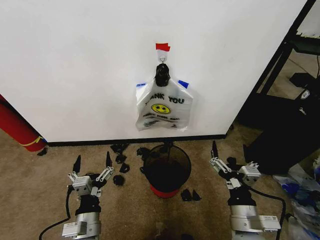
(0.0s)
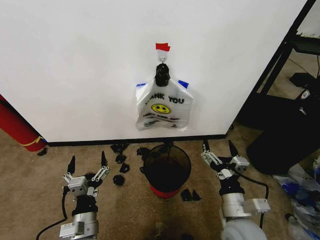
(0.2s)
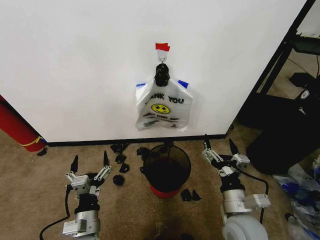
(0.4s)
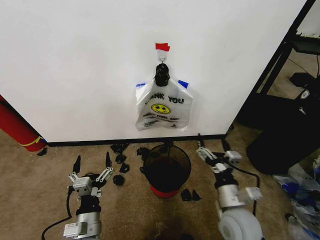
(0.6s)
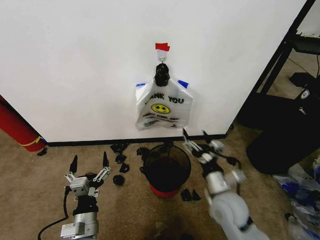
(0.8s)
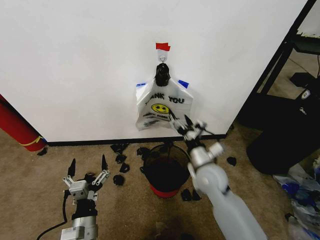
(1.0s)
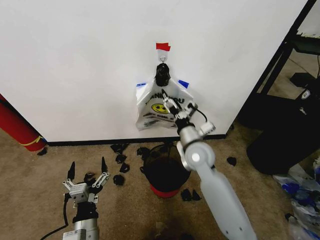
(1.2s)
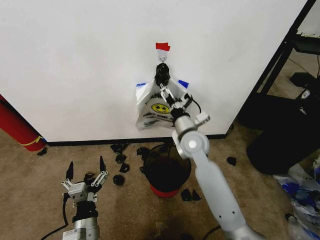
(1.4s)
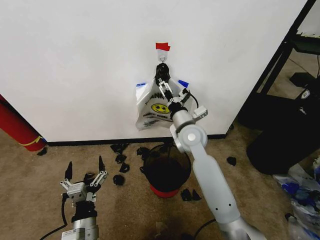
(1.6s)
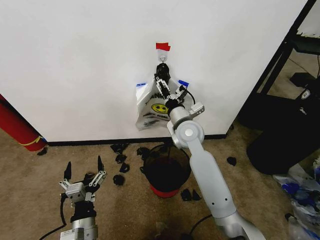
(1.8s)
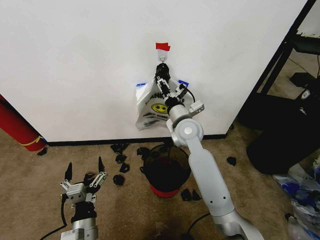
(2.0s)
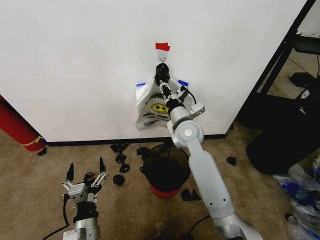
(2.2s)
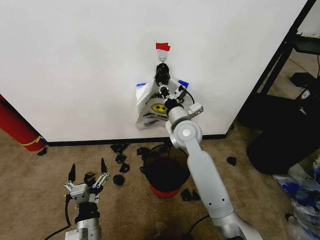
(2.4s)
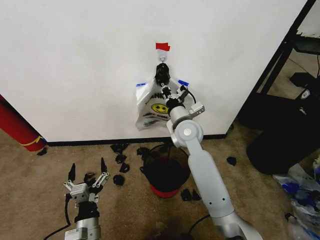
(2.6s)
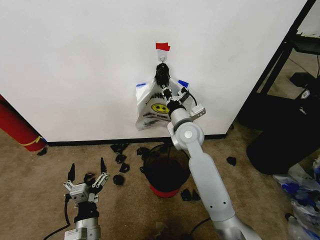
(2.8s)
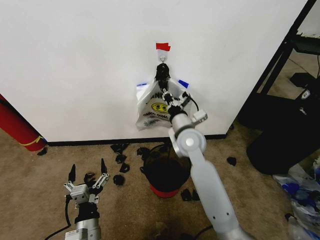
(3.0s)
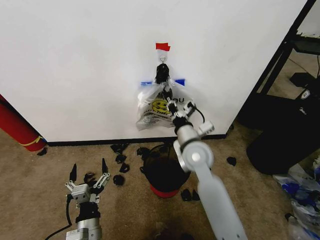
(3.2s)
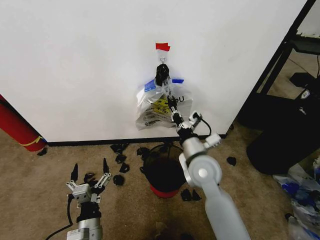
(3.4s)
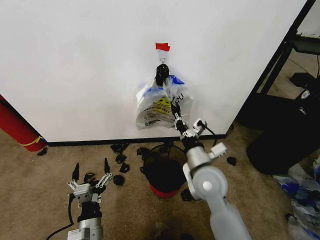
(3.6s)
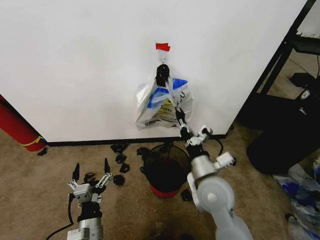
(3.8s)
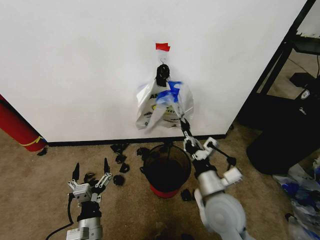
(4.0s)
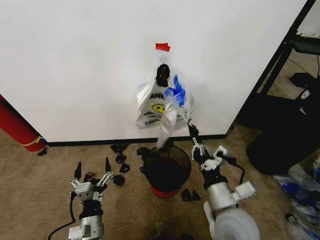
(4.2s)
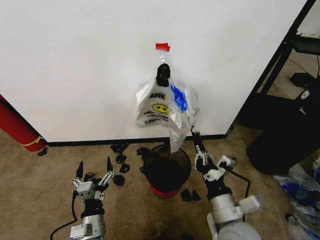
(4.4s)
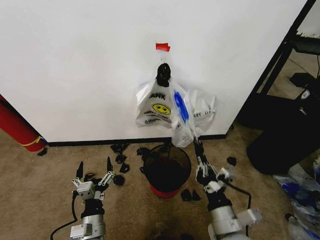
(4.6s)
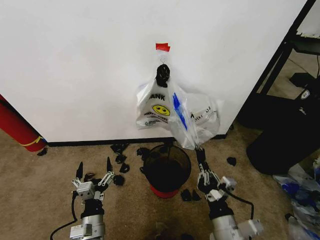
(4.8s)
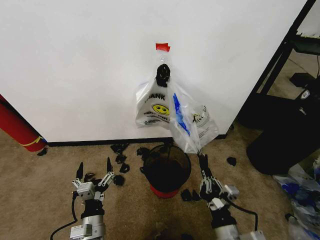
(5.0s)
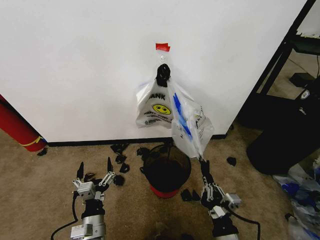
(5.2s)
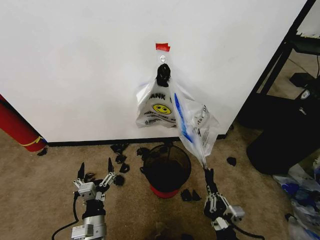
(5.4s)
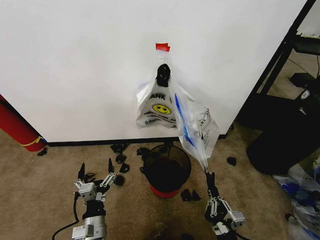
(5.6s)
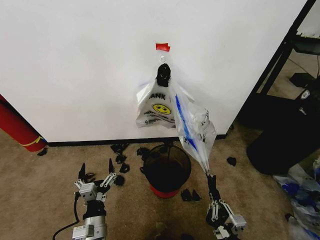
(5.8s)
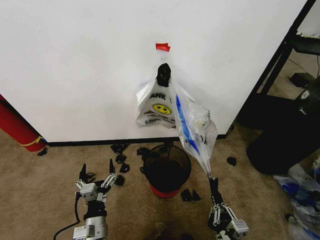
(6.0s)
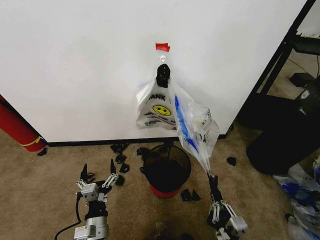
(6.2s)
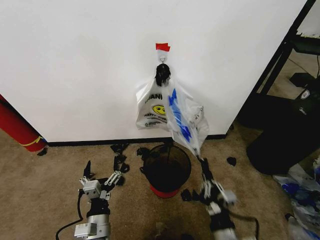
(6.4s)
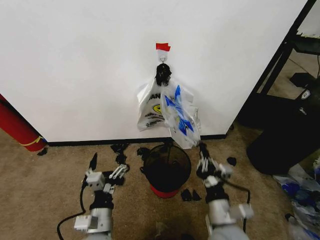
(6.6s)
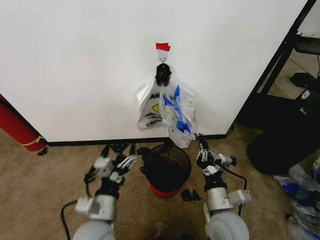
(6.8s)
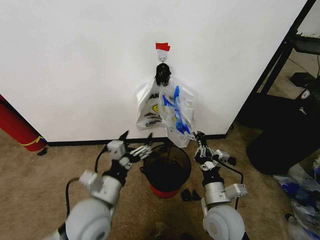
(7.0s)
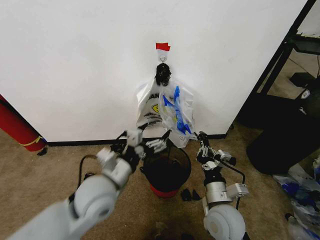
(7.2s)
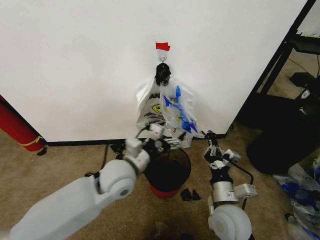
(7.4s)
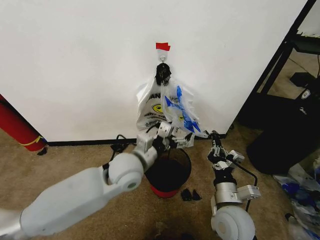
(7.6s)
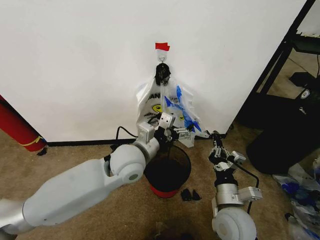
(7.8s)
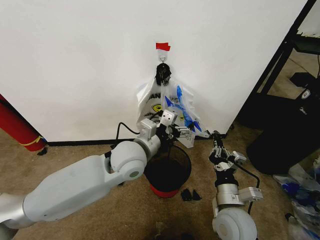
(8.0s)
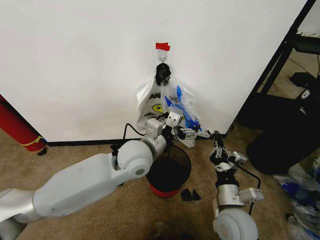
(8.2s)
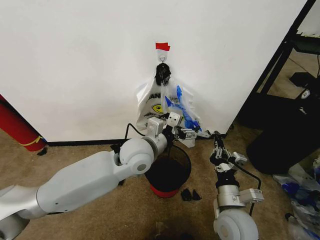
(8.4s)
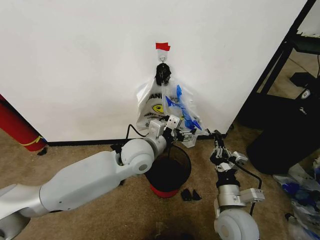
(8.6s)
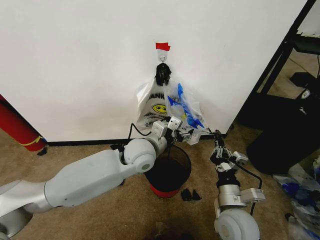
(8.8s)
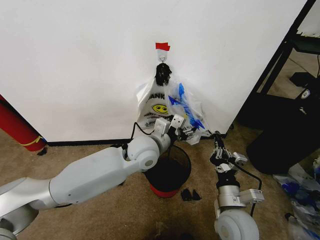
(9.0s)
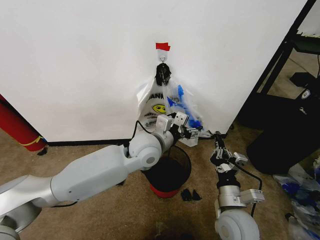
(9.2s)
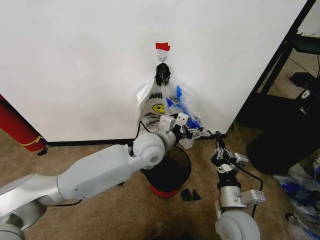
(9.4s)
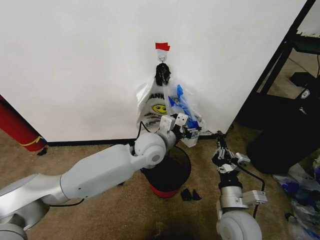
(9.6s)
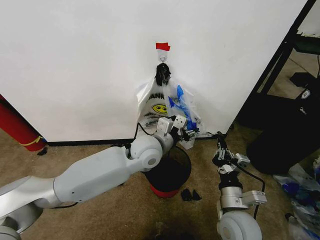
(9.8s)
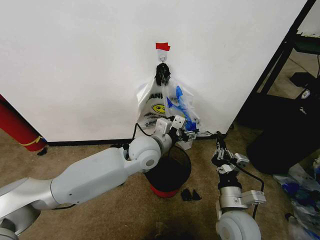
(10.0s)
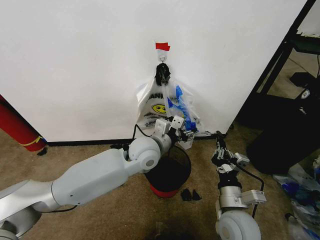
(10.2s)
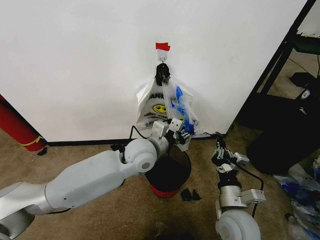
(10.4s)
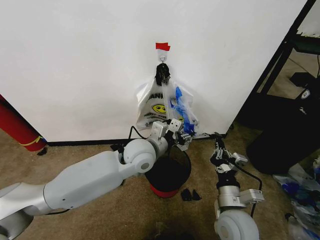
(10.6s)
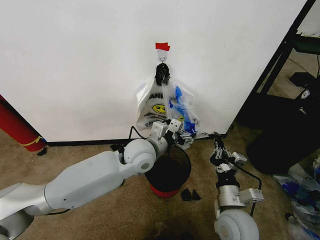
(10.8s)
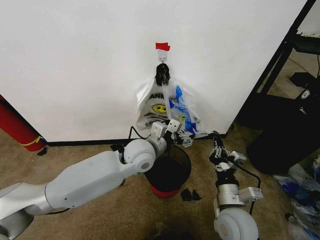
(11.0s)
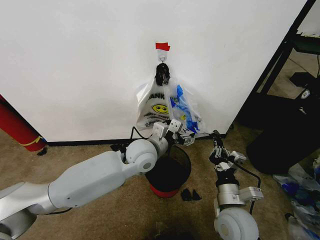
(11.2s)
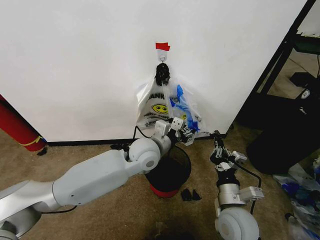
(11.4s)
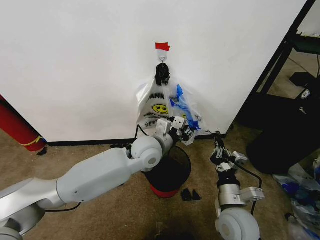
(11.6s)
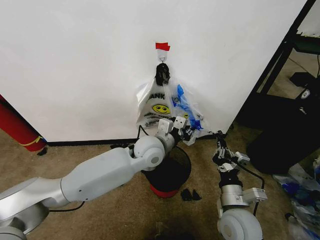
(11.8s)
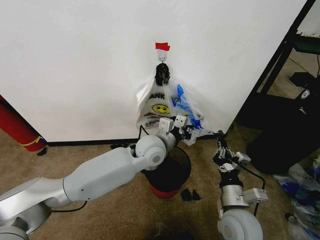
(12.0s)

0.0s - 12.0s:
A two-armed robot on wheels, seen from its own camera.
Task of the whole recording: Pick up the garbage bag from the wall and place it over the trash bin.
1.6s - 3.0s: The right gripper closes.
3.0s - 4.4s: The right gripper moves backward, some 25 cm.
4.4s - 6.0s: The right gripper shifts approximately 15 cm backward and downward.
6.0s - 7.6s: The left gripper is displaced forward, upward and to the right by about 25 cm. Meanwhile the right gripper goes approximately 20 cm forward and upward.
7.6s - 9.0s: The left gripper moves forward, roughly 5 cm, and closes up.
9.0s - 10.4s: The grippers move only a little.
10.4s - 12.0s: The left gripper closes.

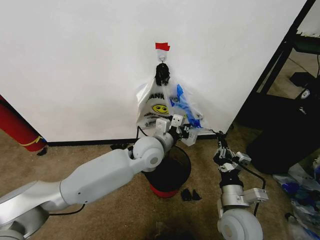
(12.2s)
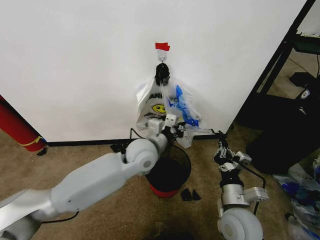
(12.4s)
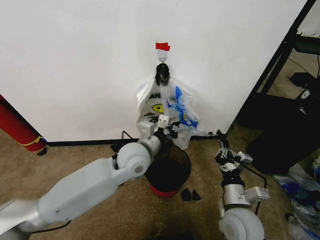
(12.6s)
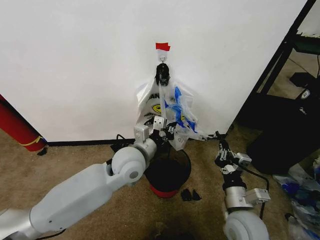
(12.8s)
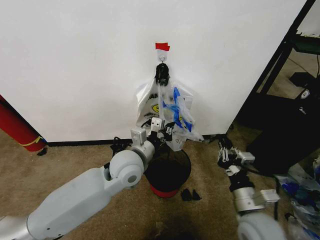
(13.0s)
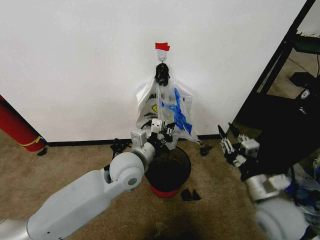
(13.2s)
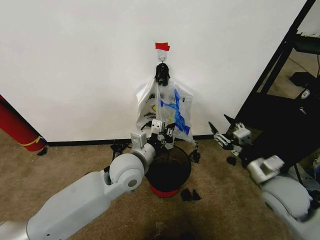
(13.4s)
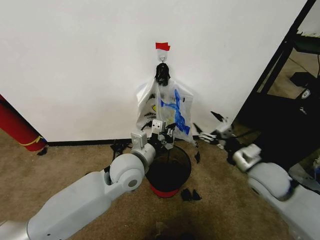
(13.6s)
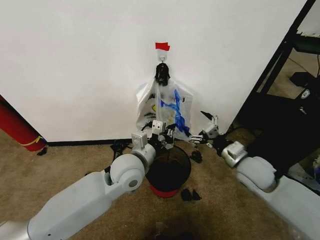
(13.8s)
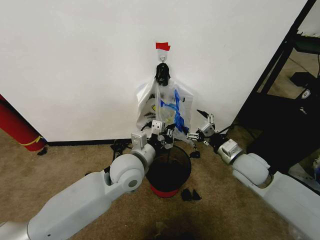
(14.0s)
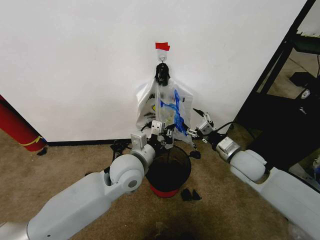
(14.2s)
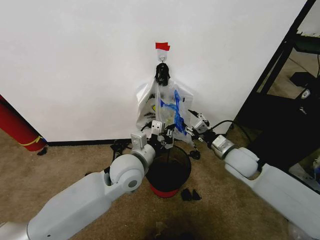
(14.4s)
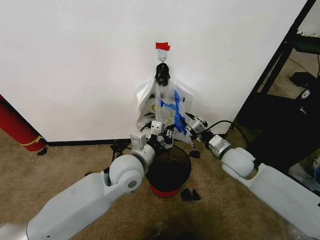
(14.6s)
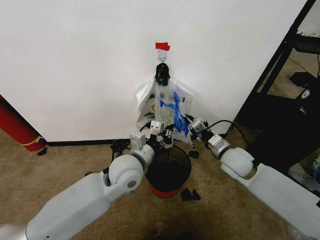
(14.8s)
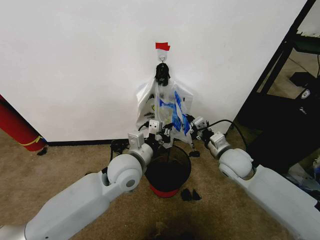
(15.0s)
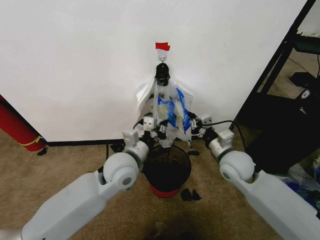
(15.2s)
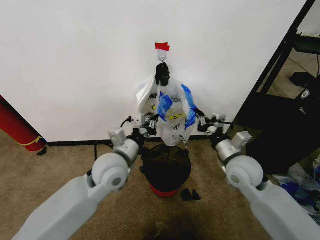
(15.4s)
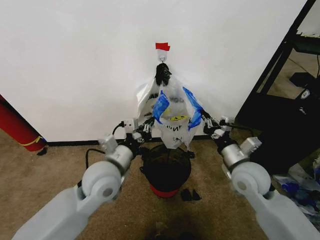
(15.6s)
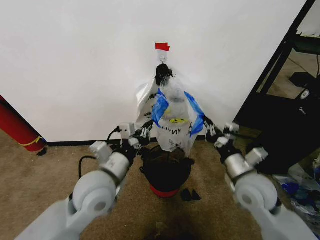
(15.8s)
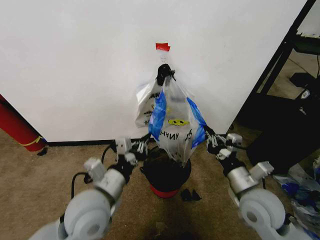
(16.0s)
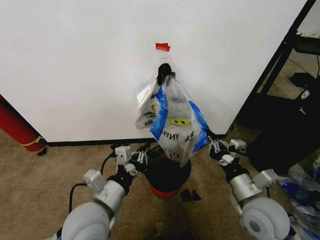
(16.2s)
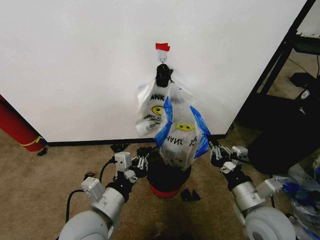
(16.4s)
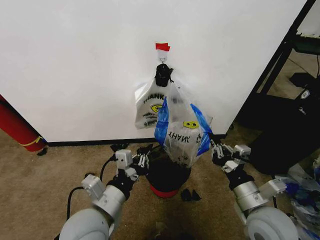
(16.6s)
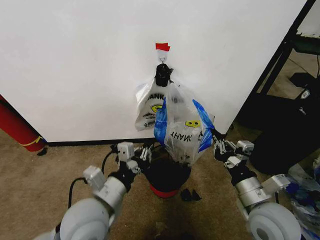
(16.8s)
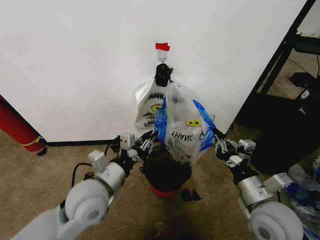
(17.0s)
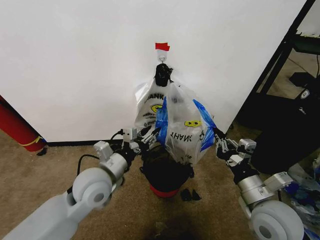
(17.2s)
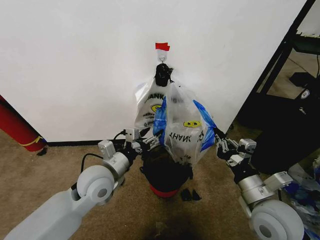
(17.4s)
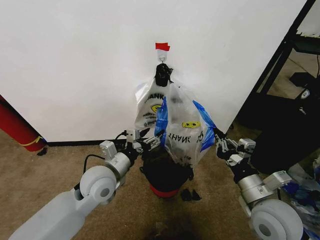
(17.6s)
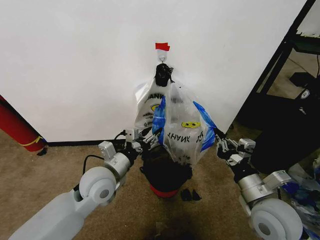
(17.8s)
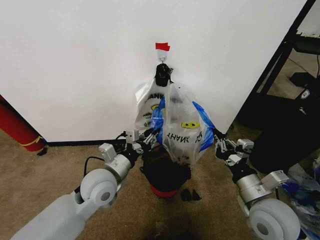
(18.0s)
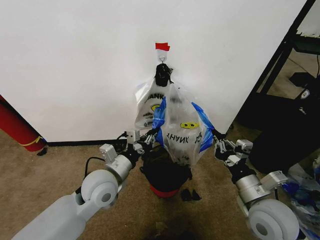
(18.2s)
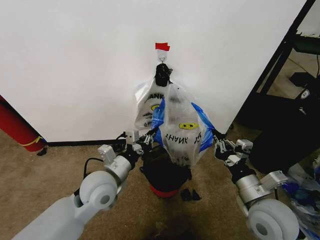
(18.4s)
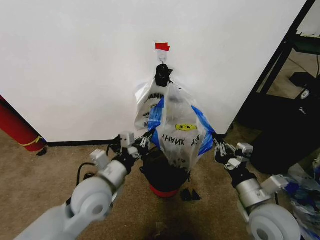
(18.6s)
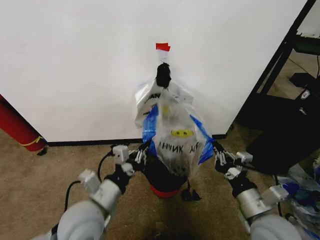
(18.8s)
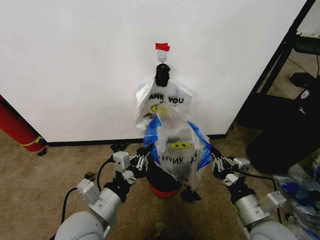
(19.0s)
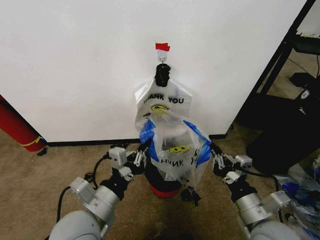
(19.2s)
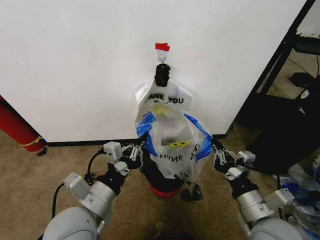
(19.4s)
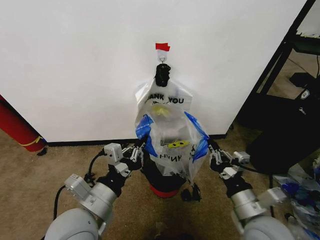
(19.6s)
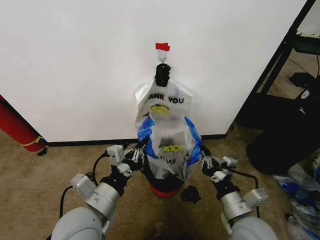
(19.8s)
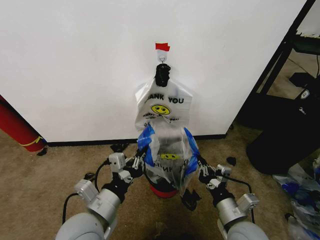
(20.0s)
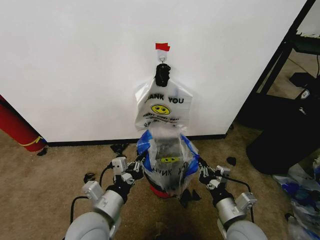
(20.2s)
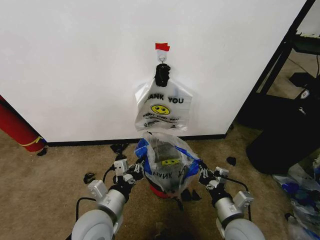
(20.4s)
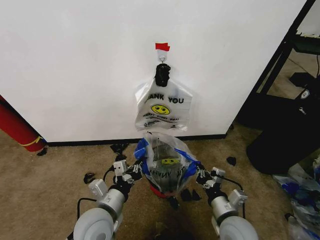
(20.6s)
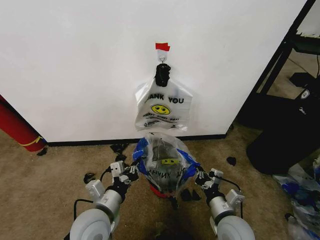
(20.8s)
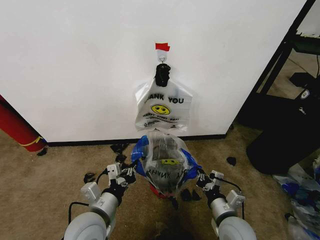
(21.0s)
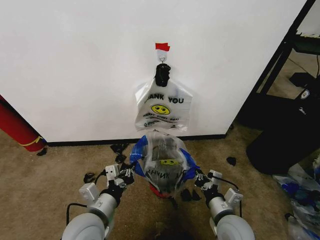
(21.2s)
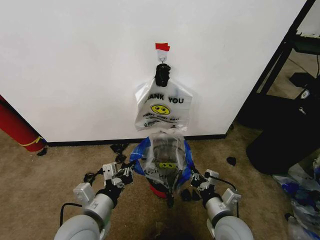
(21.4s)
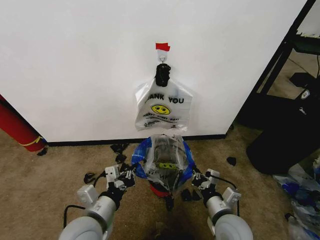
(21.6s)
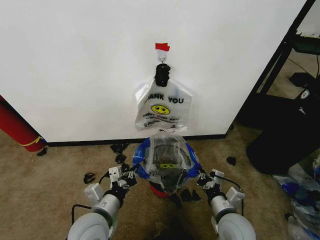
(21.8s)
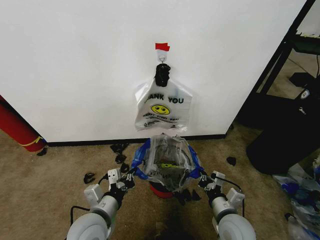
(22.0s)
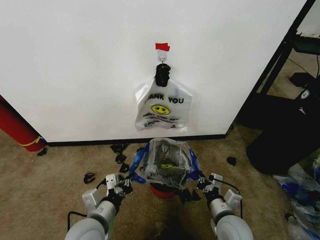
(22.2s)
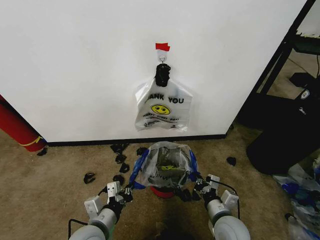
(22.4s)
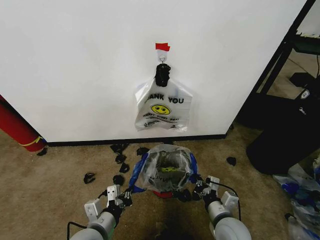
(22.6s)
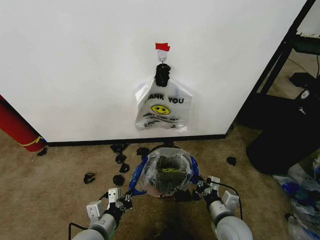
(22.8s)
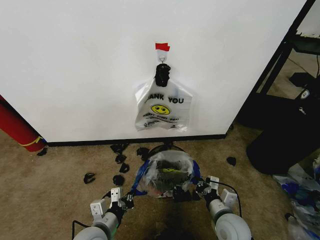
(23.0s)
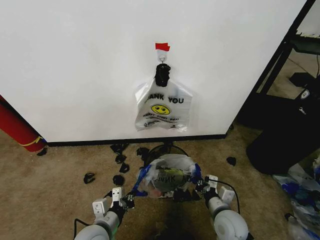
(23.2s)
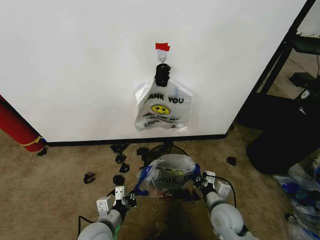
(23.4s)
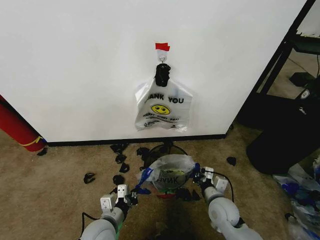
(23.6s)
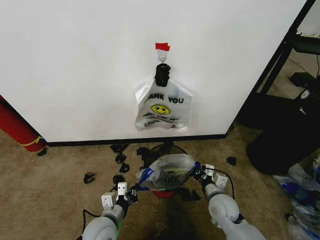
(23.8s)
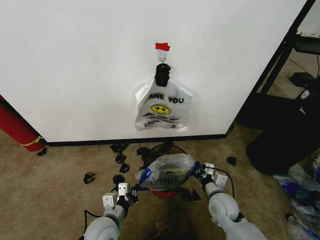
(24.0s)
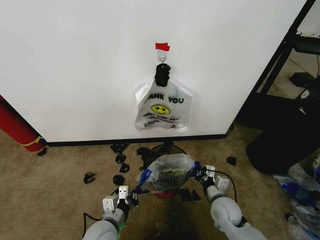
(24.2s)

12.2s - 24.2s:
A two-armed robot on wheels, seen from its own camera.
Task of the whole recording: Pick up the garbage bag from the wall and place it over the trash bin.
12.2s - 13.8s: The right gripper is displaced forward, to the right and upward by approximately 15 cm, and opens up. Meanwhile the left gripper shifts about 10 cm backward and to the left.
13.8s - 15.2s: The right gripper closes.
15.2s - 16.6s: The grippers both shift backward by about 15 cm.
16.6s - 18.2s: The left gripper goes approximately 10 cm forward, and opens, then closes again.
18.2s - 19.8s: The right gripper changes place by some 5 cm. The left gripper is displaced backward by about 10 cm.
19.8s - 21.2s: Both grippers travel together downward, roughly 5 cm.
21.2s - 22.6s: The left gripper shifts by about 5 cm.
22.6s - 24.2s: The left gripper goes some 5 cm downward, while the right gripper travels forward by some 10 cm.
